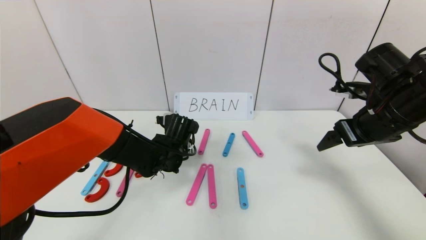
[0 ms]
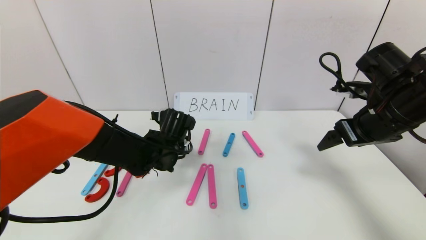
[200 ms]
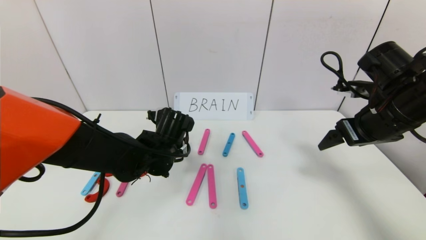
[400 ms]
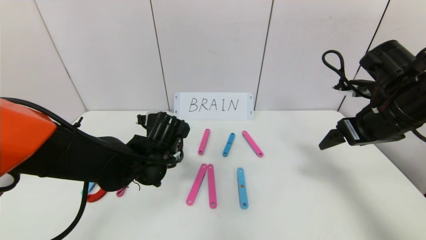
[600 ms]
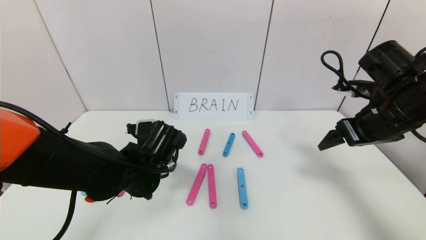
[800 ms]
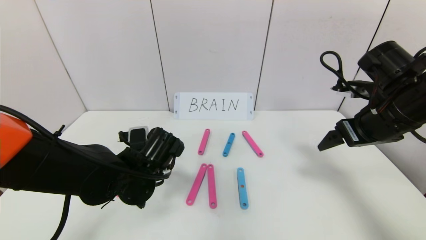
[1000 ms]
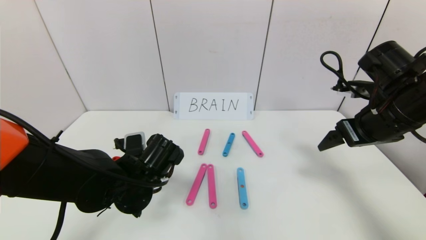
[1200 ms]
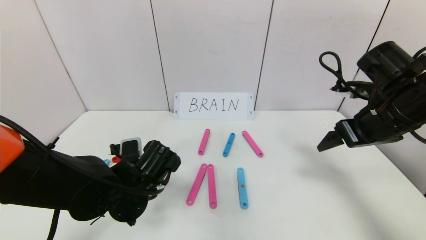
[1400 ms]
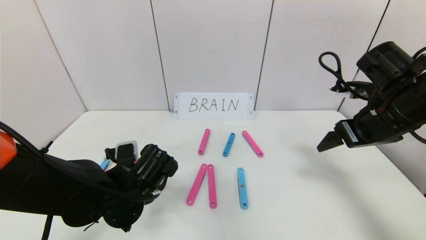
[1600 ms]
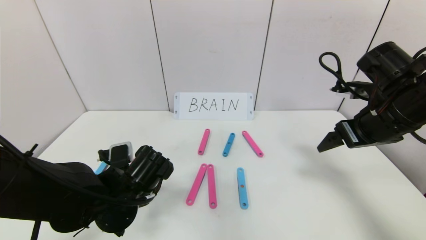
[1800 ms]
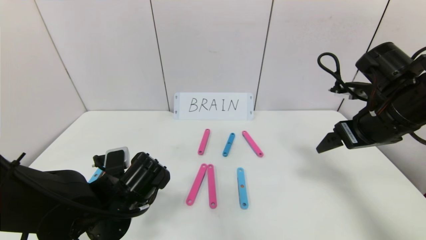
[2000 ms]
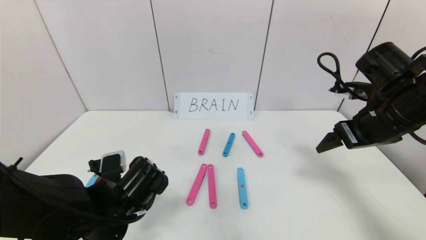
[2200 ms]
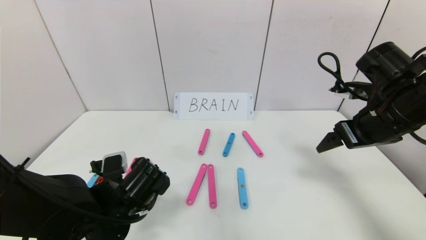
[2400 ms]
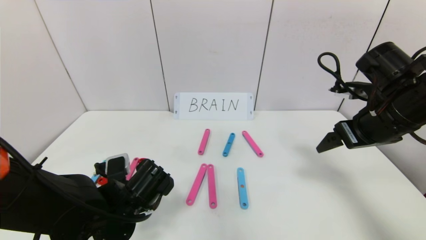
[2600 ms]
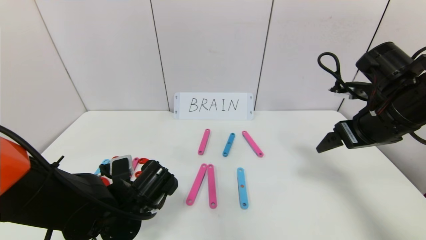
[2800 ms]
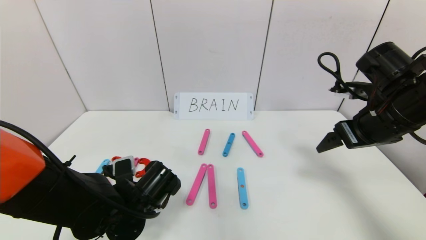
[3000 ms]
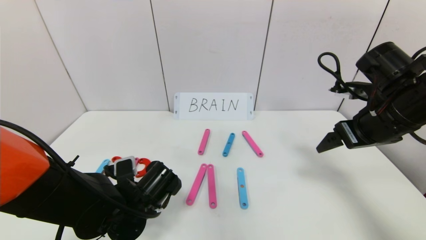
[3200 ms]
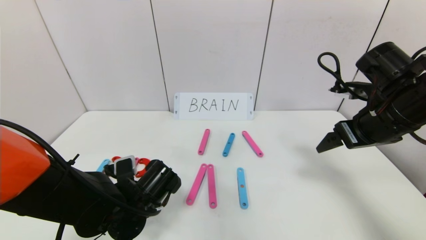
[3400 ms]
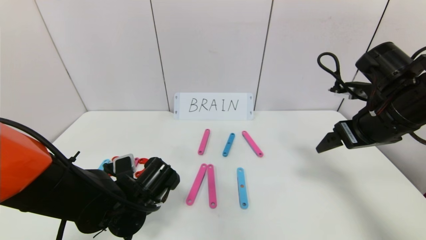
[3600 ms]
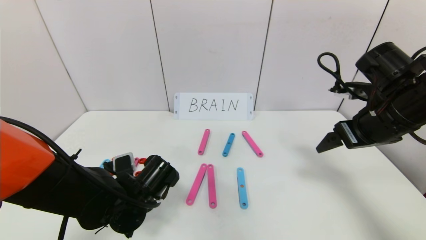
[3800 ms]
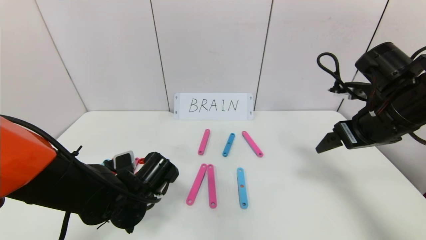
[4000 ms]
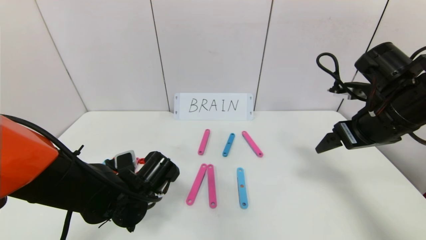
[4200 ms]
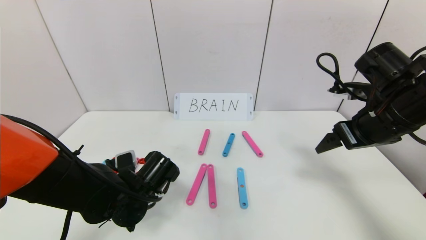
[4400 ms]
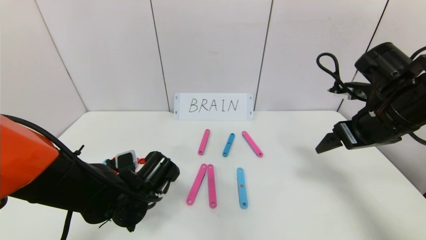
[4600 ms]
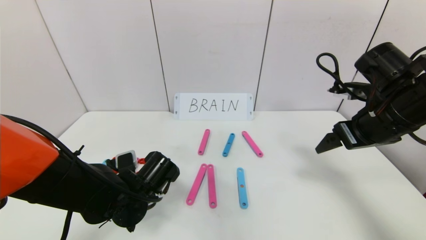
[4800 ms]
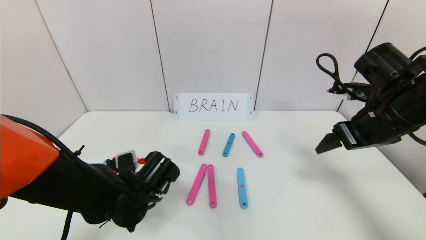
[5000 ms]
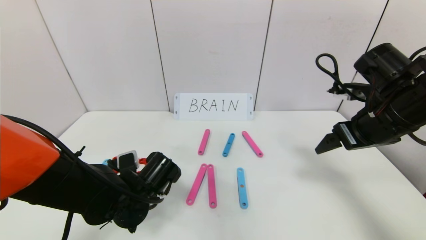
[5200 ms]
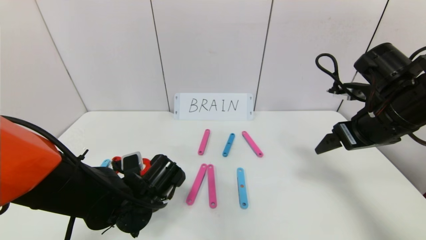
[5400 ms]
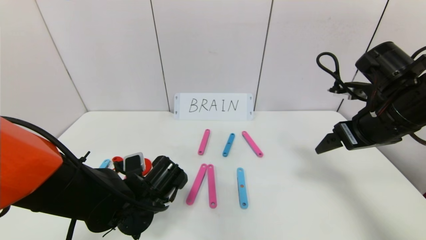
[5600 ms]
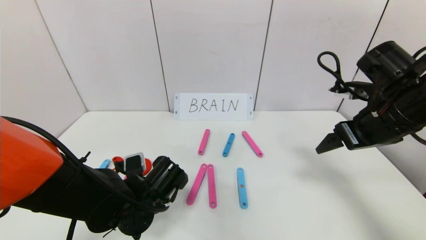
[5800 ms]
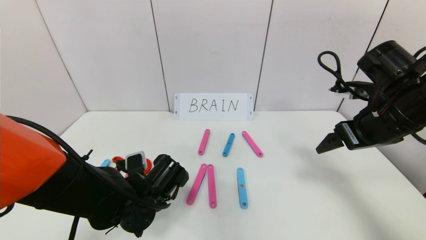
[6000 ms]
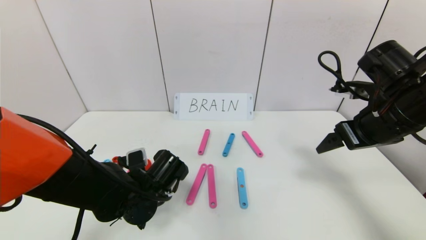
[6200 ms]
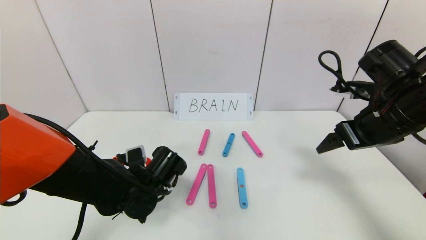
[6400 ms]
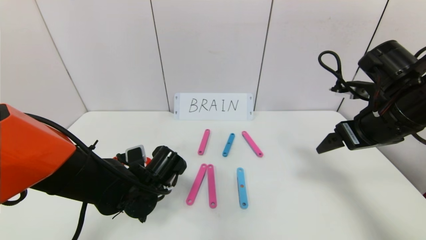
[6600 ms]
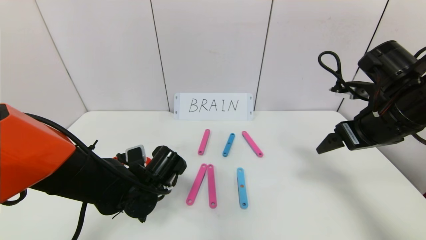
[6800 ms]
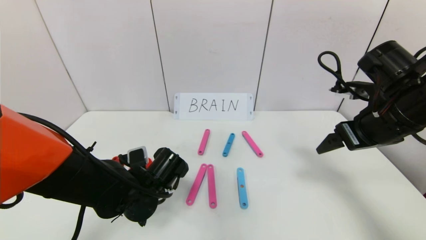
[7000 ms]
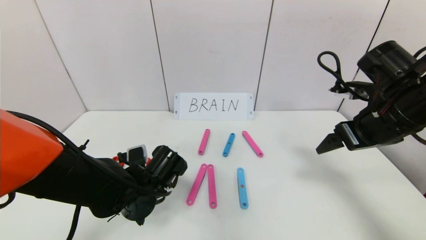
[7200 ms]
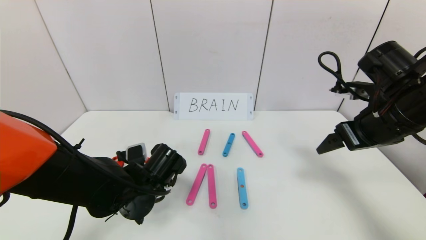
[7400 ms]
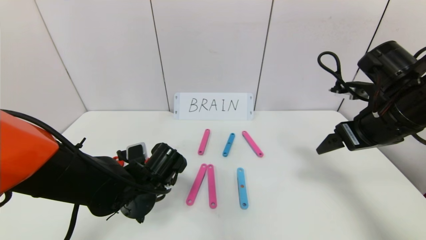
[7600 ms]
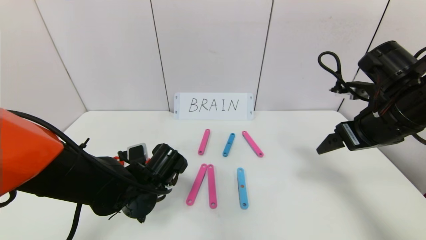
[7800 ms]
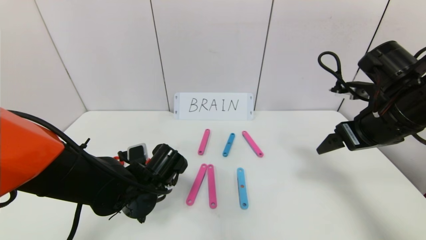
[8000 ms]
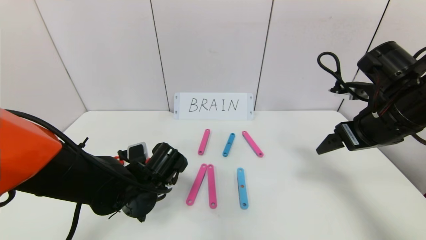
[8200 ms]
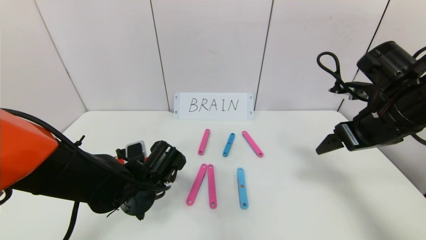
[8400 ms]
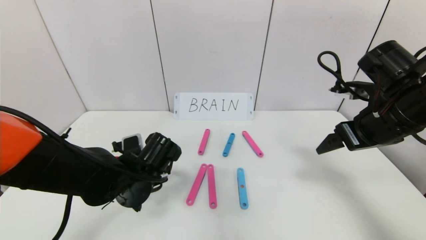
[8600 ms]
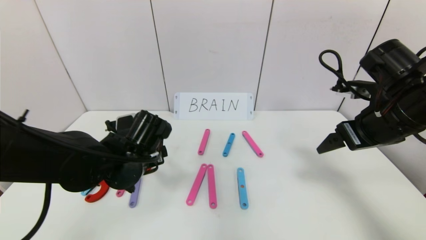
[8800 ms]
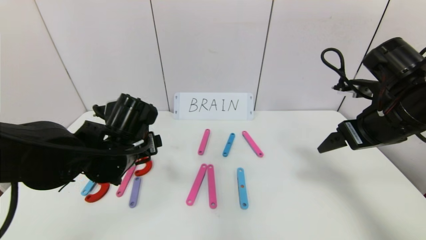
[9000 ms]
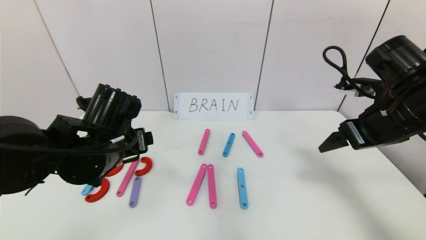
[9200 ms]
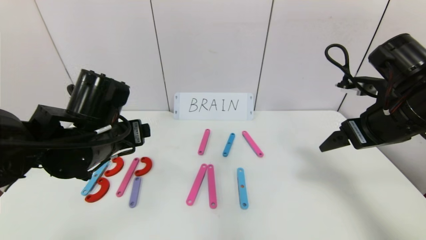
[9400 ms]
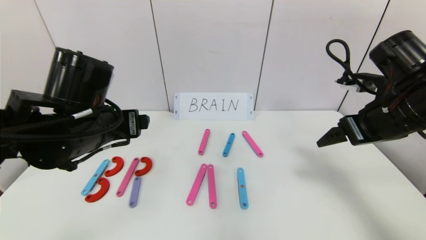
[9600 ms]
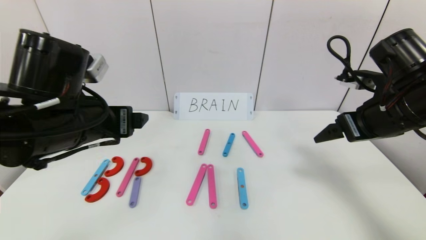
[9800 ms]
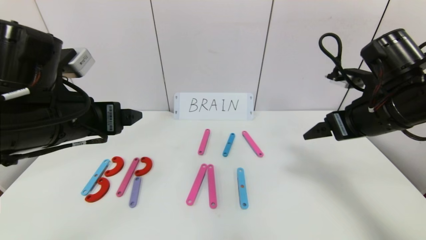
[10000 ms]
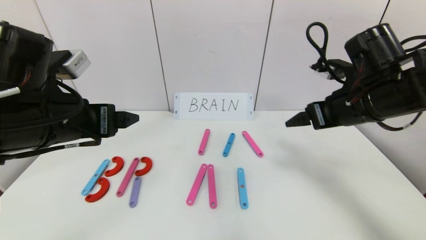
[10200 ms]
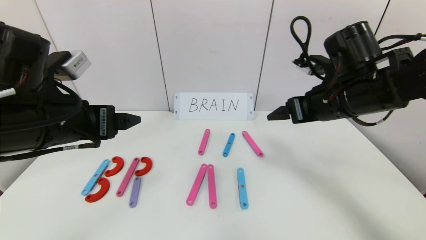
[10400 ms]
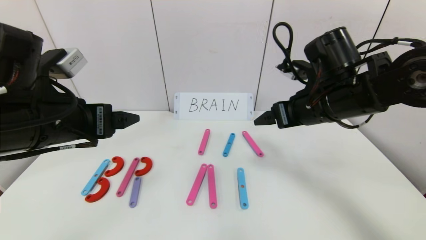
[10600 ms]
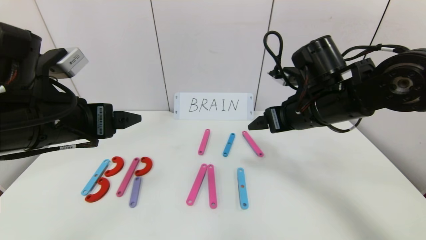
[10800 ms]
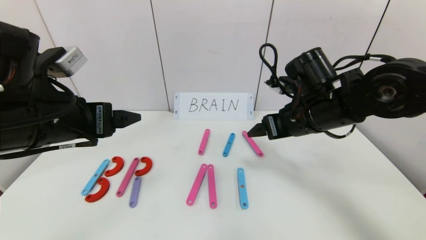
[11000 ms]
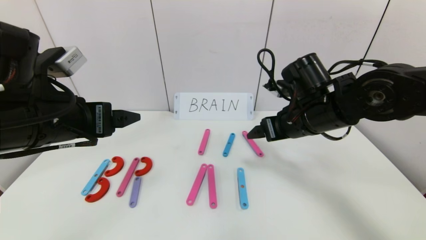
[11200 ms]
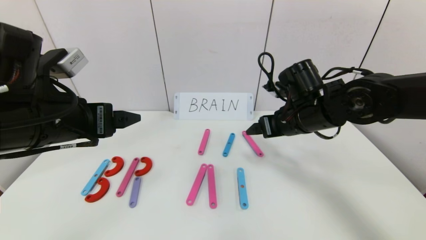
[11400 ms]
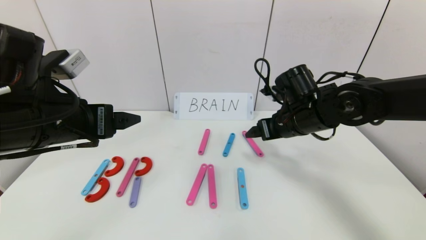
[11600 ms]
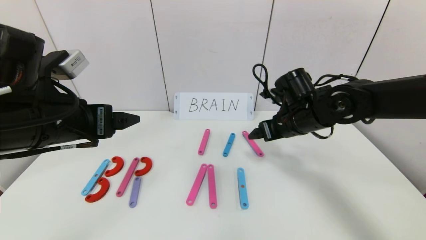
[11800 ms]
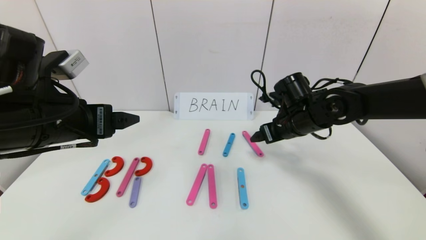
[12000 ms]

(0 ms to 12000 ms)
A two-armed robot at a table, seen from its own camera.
Task of the whole recording: rearrange the word baai as brain.
Step, 0 ms - 8800 ms: Place the character R between first character B and third character A.
0 ms - 1600 ms: The left gripper shifts roughly 10 cm backward.
1600 ms - 4400 ms: The grippers move only a little.
4400 ms - 6000 ms: The left gripper opens.
6000 ms - 7600 ms: The grippers stay close to where they were, moving slightly.
7600 ms - 9000 ms: The left gripper heads upward, covering roughly 10 cm.
9000 ms - 10400 ms: The left gripper is displaced upward, backward and to the left by about 10 cm; the right gripper heads to the left, covering about 5 cm.
10400 ms - 12000 ms: The right gripper shifts about 10 cm downward and forward.

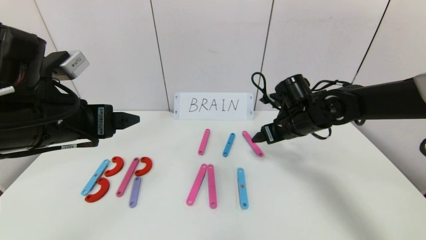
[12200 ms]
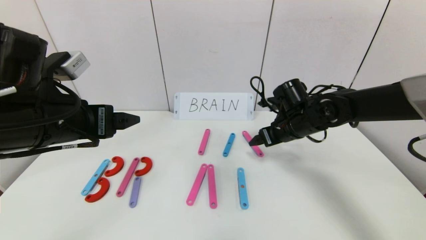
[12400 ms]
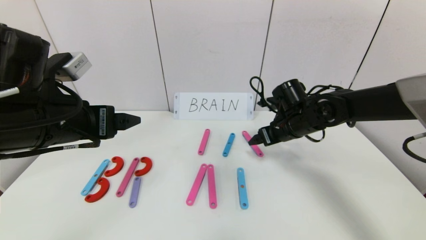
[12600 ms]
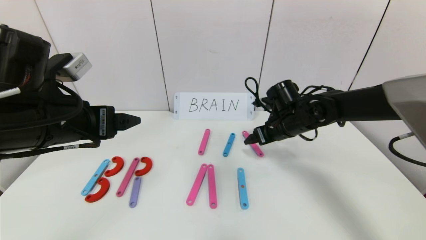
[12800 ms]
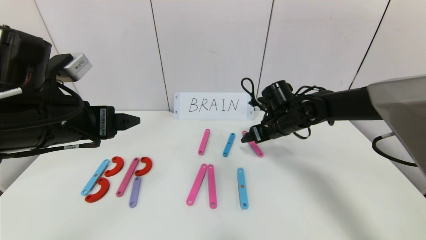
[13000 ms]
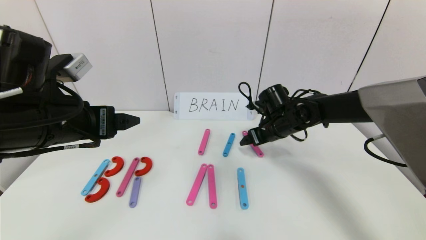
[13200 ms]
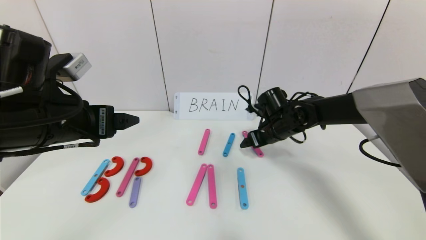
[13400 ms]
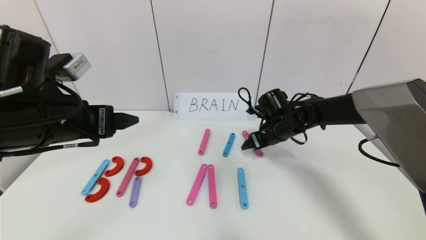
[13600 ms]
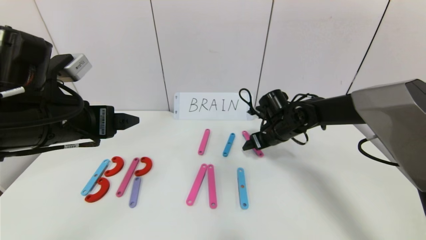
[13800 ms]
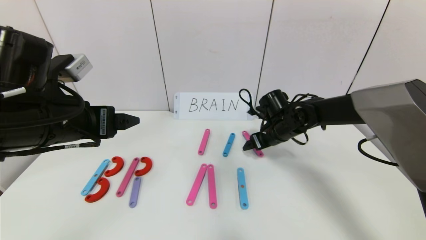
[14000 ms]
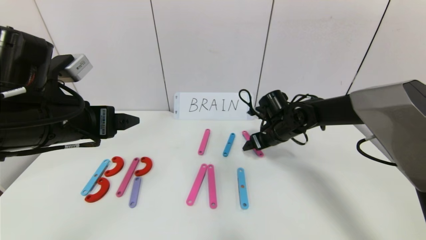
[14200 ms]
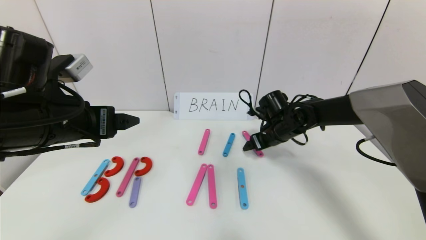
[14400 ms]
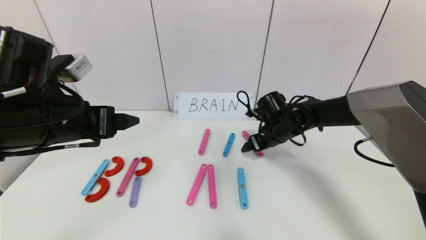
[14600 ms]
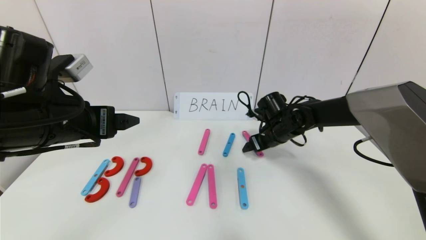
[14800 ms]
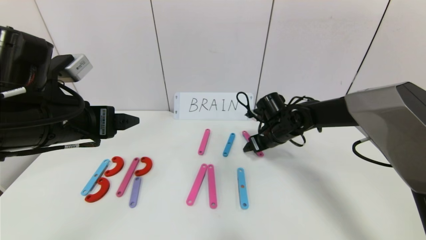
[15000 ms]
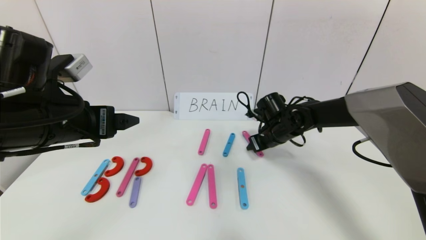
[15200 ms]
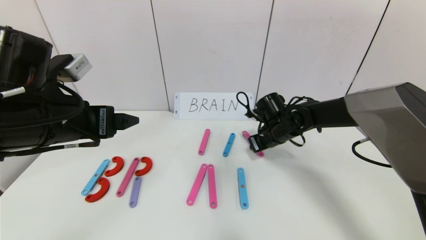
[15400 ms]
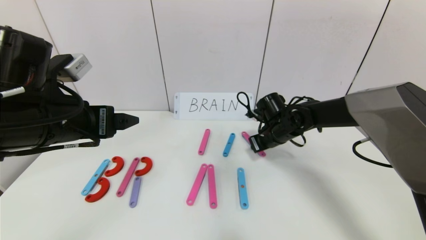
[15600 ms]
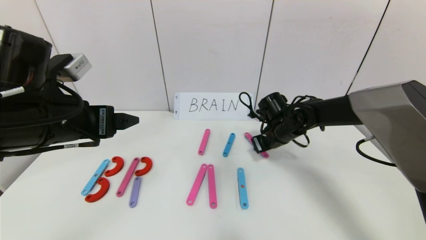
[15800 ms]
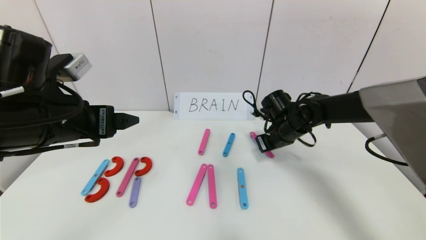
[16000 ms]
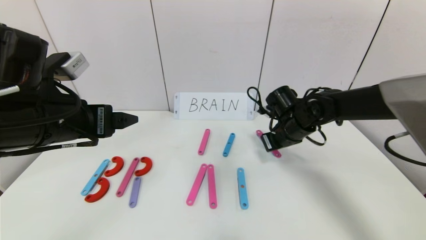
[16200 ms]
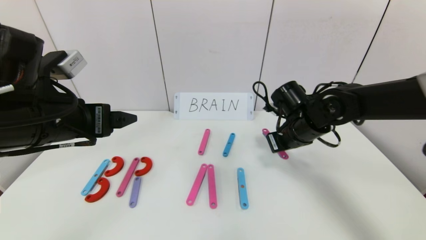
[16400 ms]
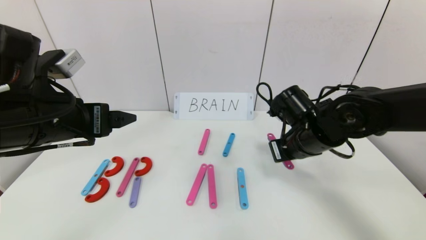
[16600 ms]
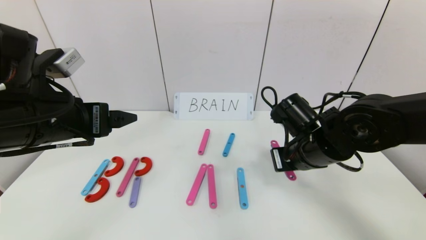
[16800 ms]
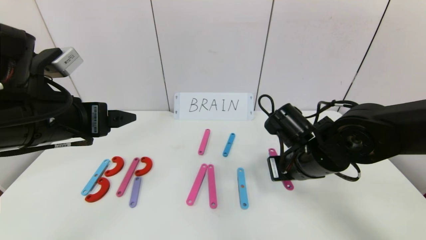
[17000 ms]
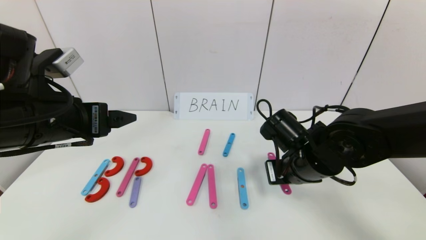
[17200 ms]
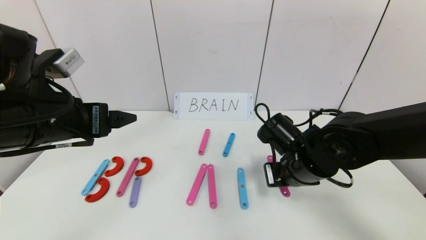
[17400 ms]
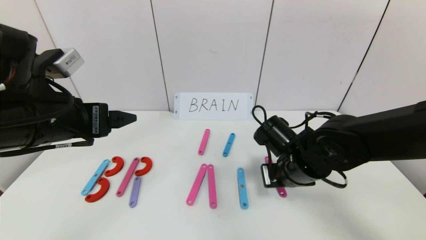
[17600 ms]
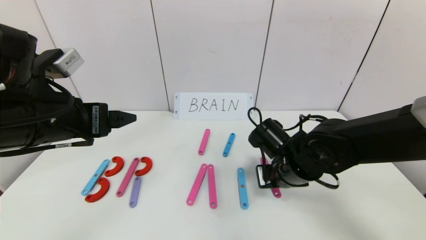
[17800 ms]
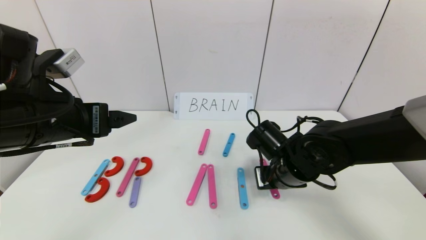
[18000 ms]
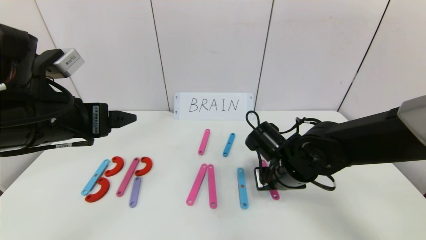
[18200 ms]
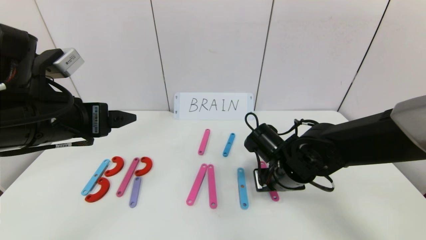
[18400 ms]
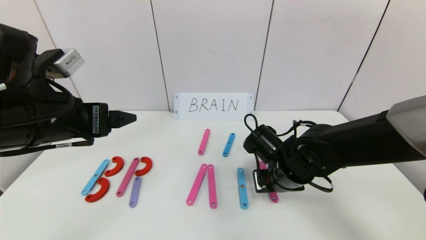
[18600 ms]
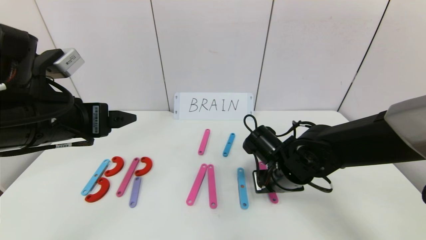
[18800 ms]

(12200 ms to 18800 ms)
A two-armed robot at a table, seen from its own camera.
Task of the whole recording: rearrange the word baai as brain.
12200 ms - 13800 ms: The right gripper ends up approximately 5 cm from where it was.
13800 ms - 15400 ms: The right gripper closes up.
15400 ms - 17200 ms: The right gripper heads backward, covering some 15 cm.
17200 ms - 18800 ms: There are only small adjustments of the grippers.
